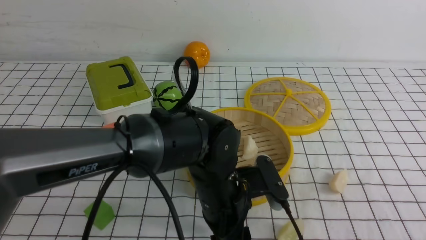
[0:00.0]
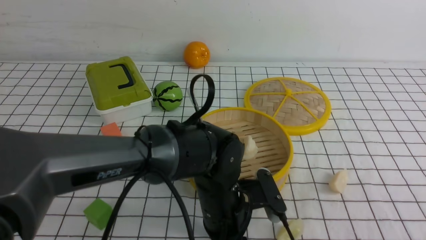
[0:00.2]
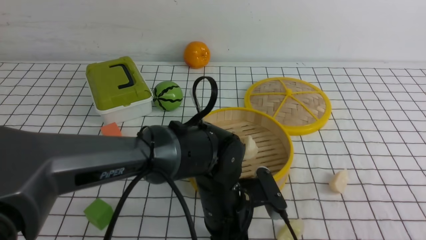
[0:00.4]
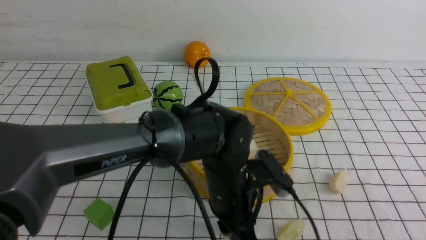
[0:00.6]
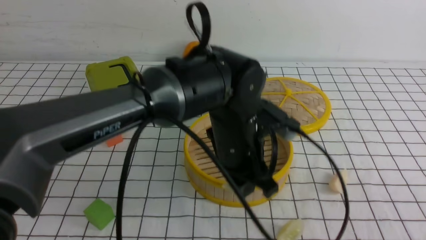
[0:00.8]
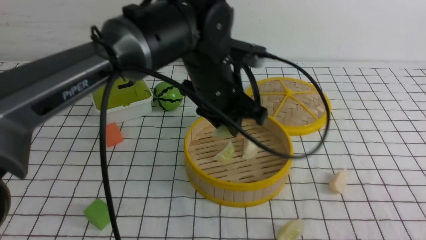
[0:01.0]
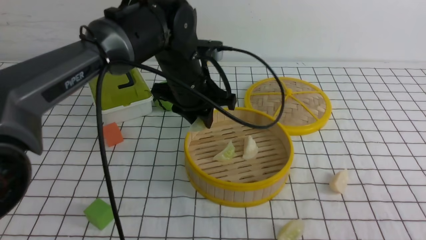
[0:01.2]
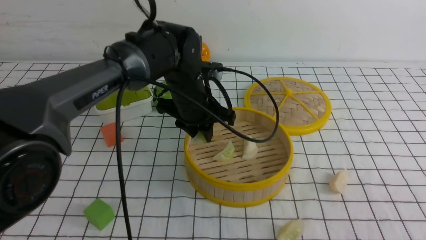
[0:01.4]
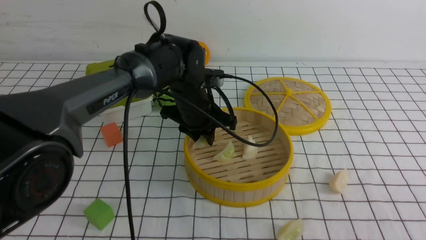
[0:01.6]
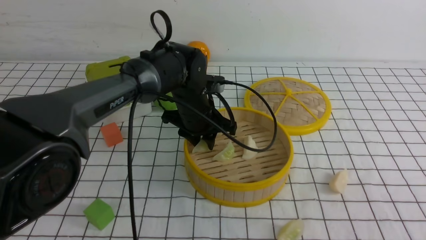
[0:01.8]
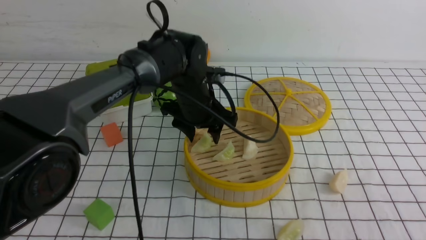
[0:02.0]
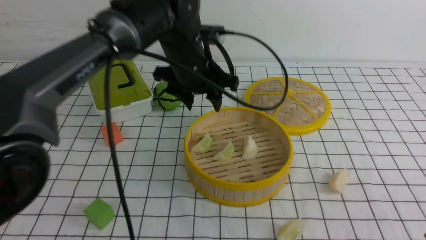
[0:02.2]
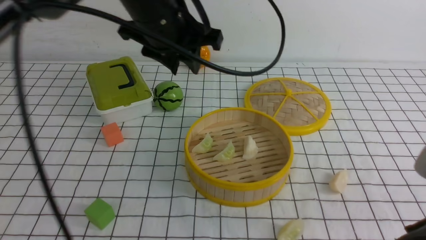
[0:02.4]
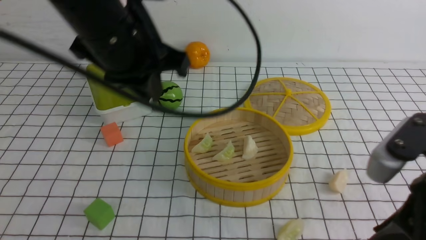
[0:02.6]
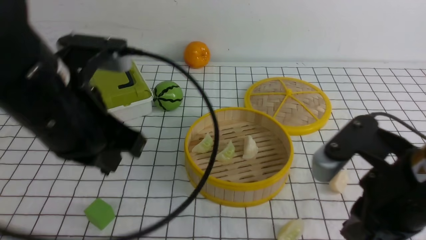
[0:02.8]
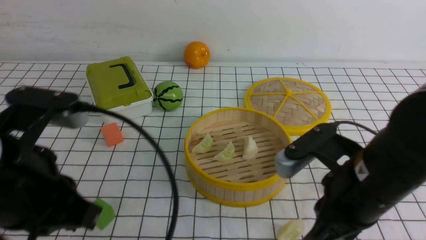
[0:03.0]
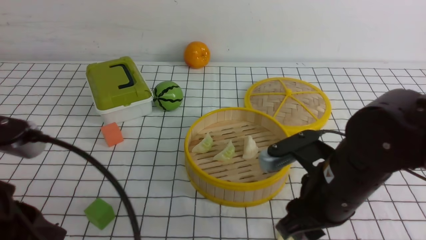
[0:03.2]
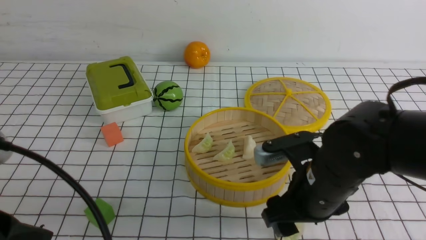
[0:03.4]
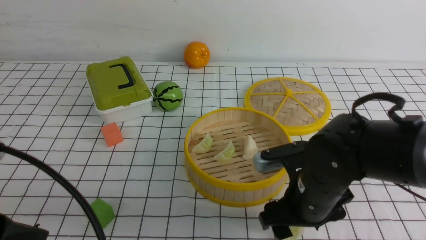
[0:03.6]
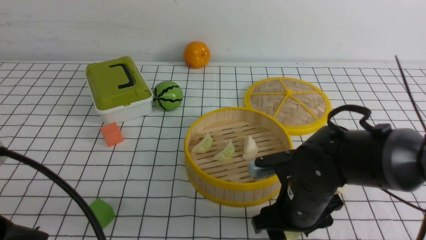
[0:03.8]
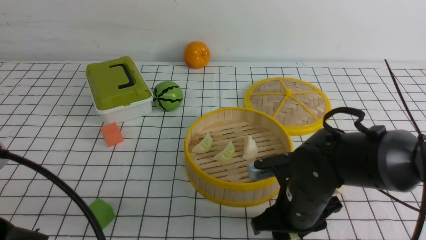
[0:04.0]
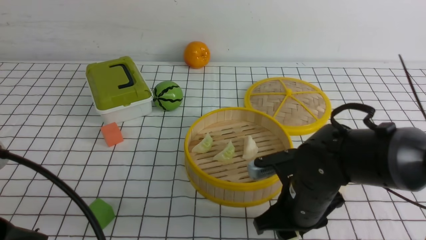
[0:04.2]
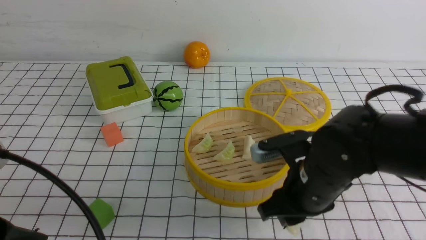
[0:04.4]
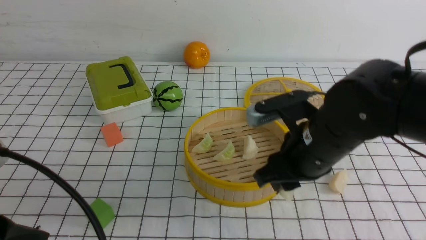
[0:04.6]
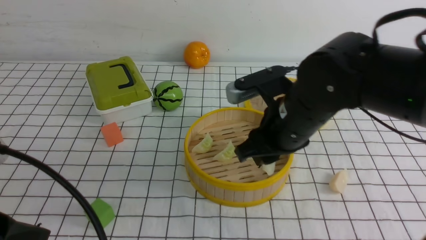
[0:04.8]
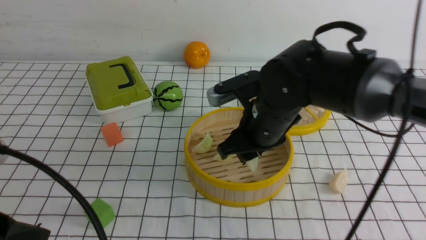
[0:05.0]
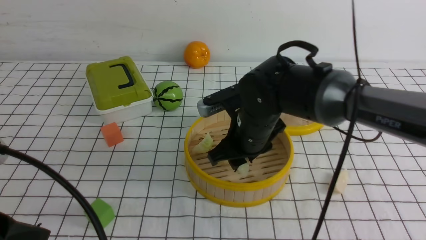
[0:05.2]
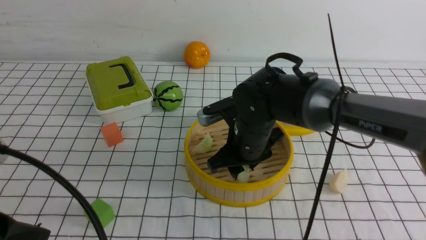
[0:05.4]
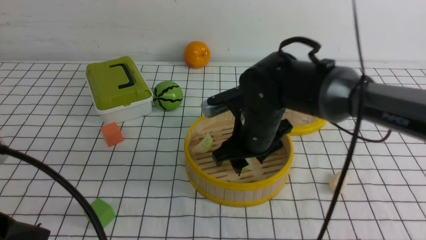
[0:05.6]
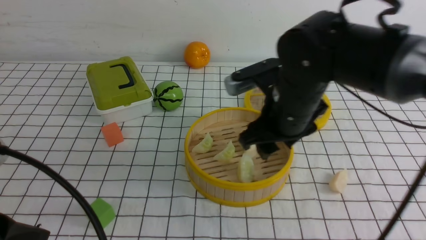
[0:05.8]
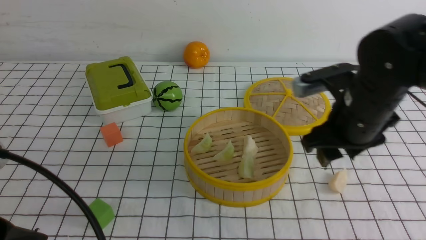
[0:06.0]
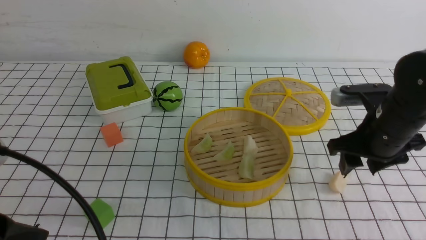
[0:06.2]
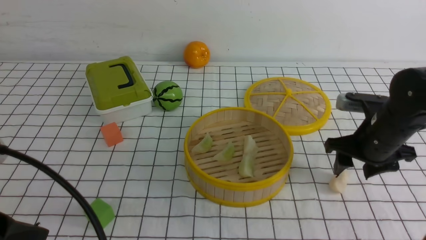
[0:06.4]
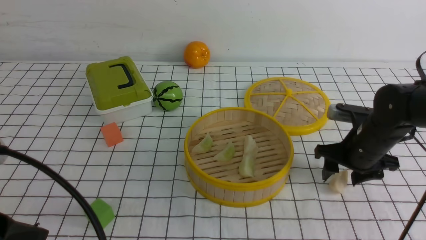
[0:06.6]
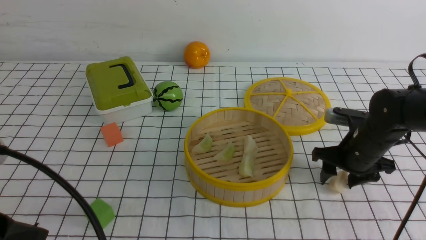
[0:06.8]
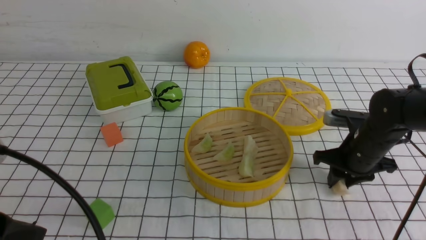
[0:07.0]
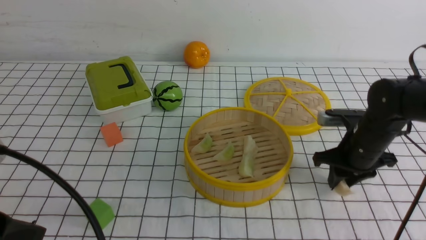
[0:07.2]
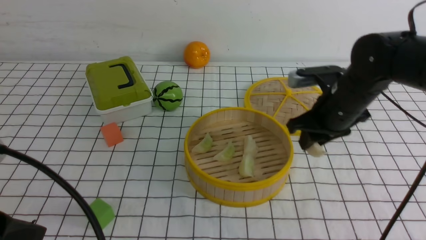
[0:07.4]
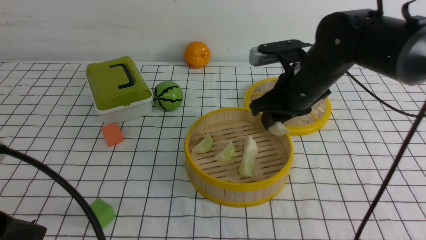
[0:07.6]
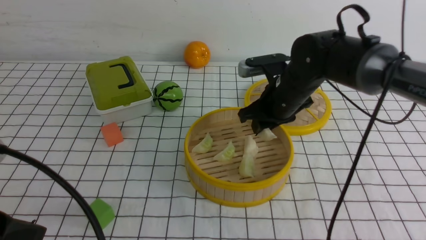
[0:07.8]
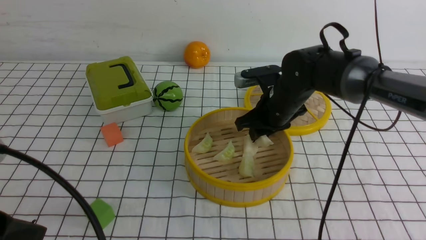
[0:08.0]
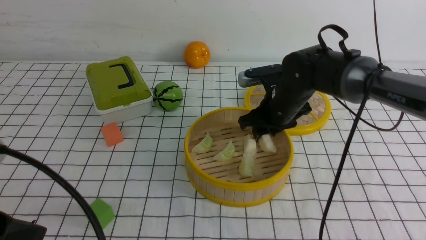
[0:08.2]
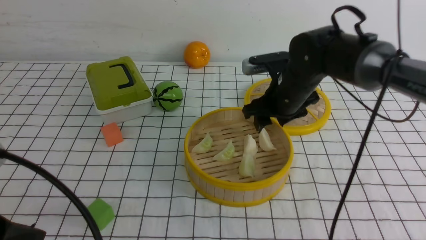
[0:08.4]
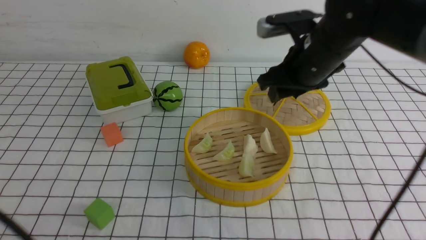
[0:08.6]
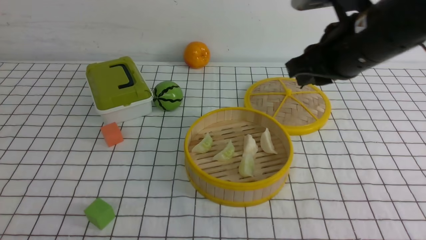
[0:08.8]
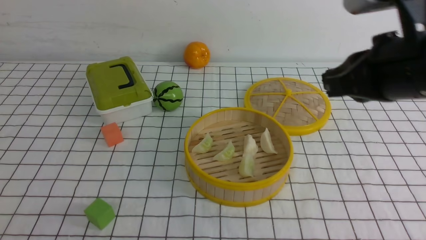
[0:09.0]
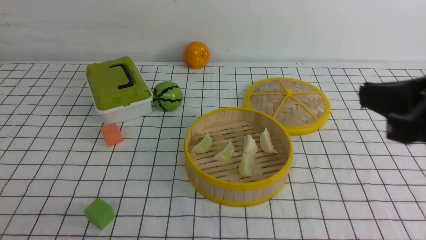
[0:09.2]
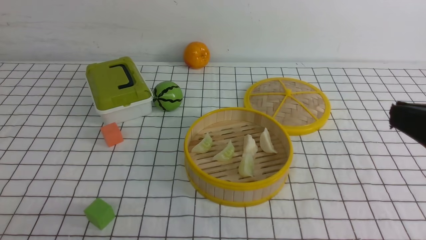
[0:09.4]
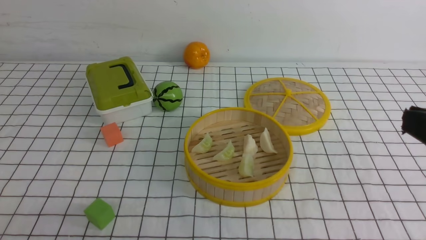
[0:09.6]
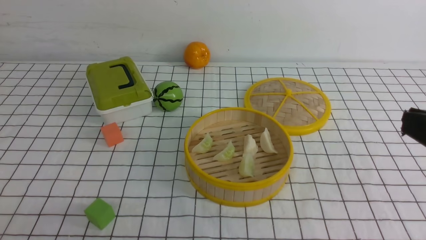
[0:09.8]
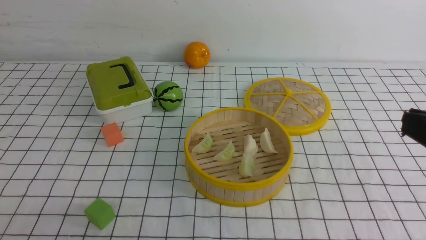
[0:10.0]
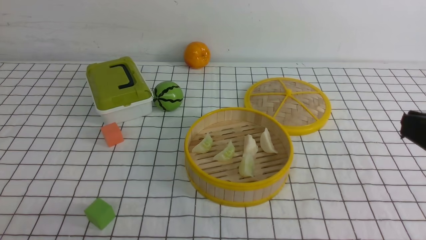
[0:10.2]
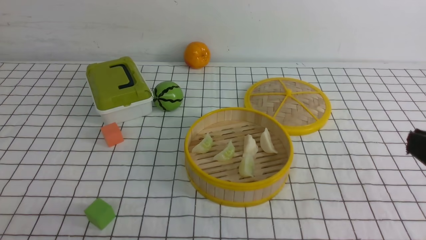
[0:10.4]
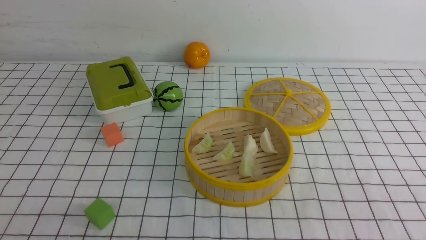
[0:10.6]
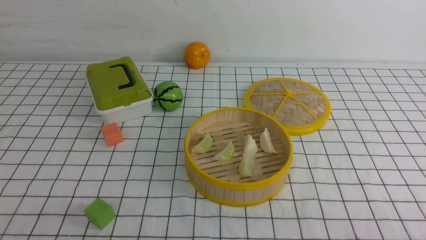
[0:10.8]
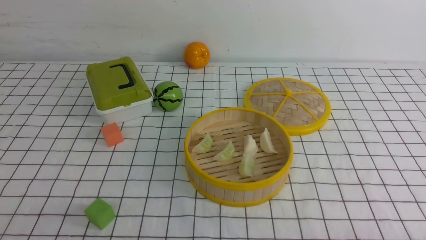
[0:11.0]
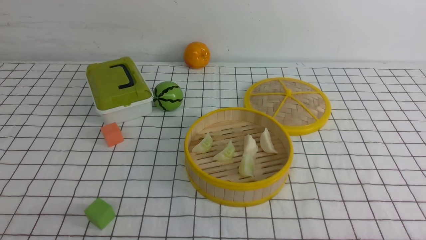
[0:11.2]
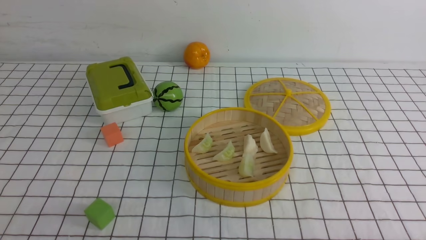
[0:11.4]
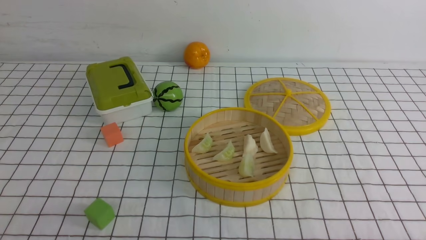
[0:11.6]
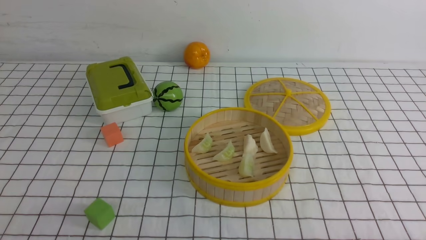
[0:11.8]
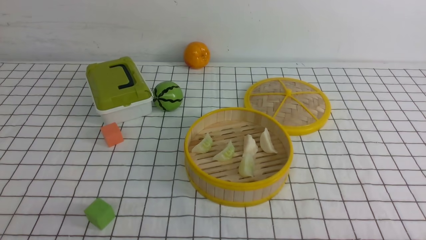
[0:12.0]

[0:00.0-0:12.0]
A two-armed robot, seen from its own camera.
Task of the whole recording: put the dumplings into the steamer on the table with the white tablecloth.
Step, 0:00.6 to 0:02.0: use the left arm to put the dumpling into the steamer.
Step, 0:02.2 to 0:04.0: use the right arm to grab a dumpling.
Step, 0:04.2 to 0:05.6: use the right arm to put the dumpling into the steamer.
Step, 0:06.0 to 0:06.8: use the right arm to grab a dumpling.
Step, 0:07.0 to 0:08.6: use the right arm to put the dumpling into the steamer.
0:00.0 to 0:01.6: The left gripper shifts roughly 15 cm forward, and closes.
0:01.6 to 0:03.0: The right gripper goes roughly 15 cm forward, to the left and downward. The left gripper travels backward, to the left and upward by about 35 cm, and closes its fingers.
0:03.0 to 0:04.4: The left gripper moves backward, about 5 cm, while the right gripper travels forward and downward by roughly 10 cm, and opens, then closes once more.
0:04.4 to 0:06.0: The right gripper moves to the right, forward and upward, approximately 10 cm.
0:06.0 to 0:07.6: The right gripper is displaced forward by roughly 5 cm, and closes.
0:07.6 to 0:09.0: The right gripper shifts roughly 20 cm backward and upward, and closes up. The left gripper heads backward, covering some 10 cm.
0:09.0 to 0:10.4: The right gripper moves backward, to the right and downward, some 15 cm.

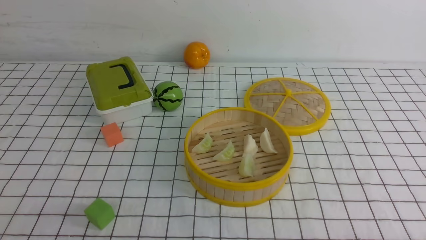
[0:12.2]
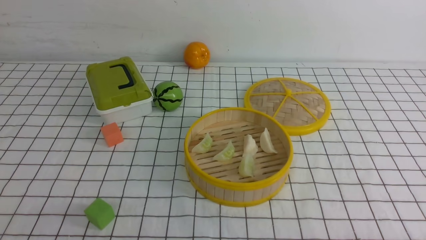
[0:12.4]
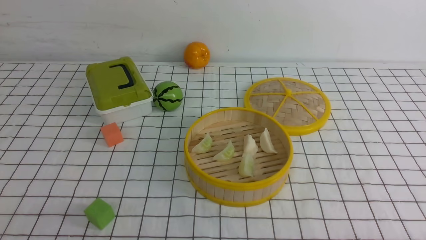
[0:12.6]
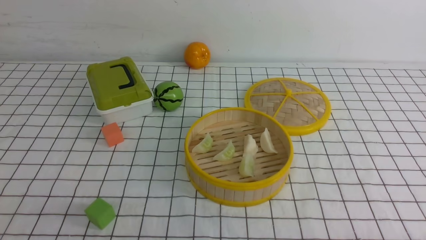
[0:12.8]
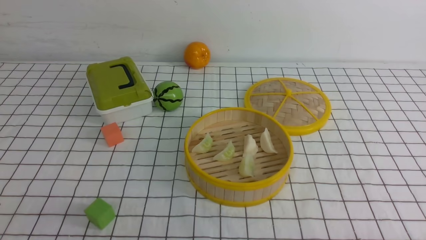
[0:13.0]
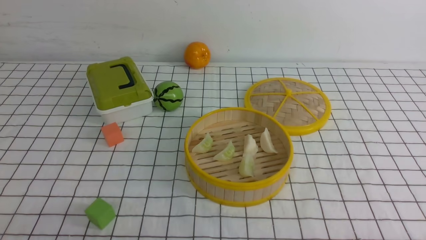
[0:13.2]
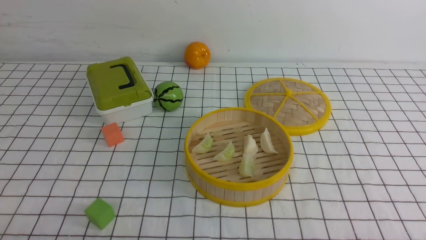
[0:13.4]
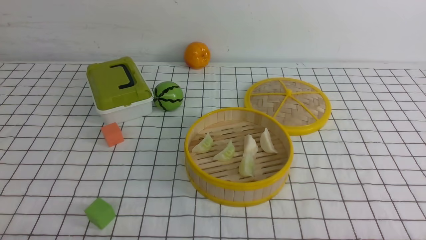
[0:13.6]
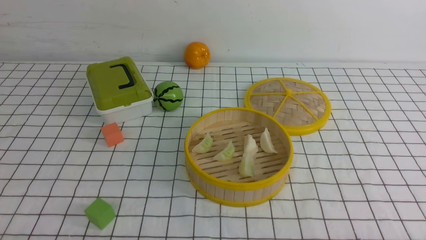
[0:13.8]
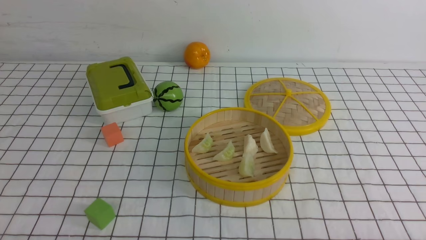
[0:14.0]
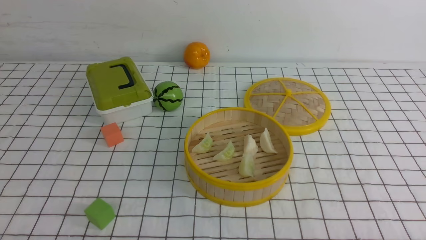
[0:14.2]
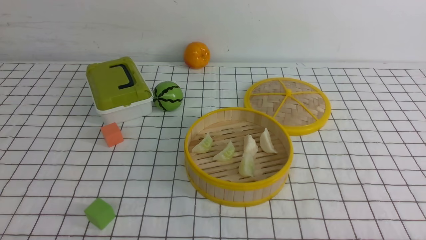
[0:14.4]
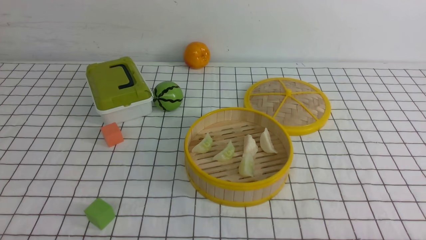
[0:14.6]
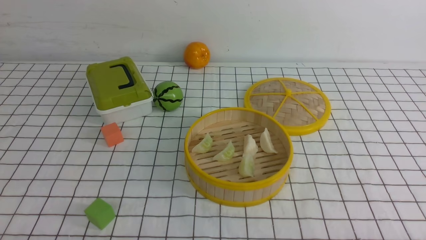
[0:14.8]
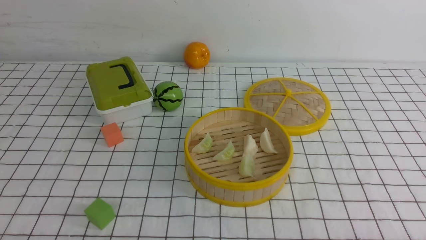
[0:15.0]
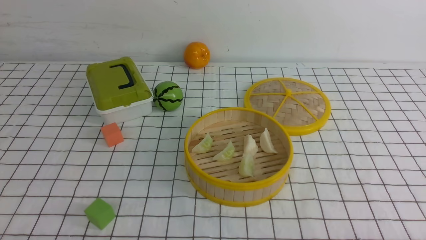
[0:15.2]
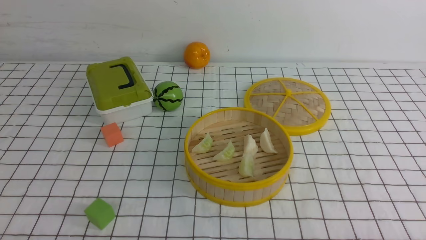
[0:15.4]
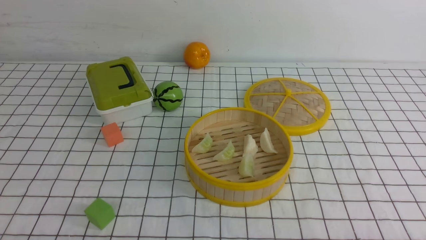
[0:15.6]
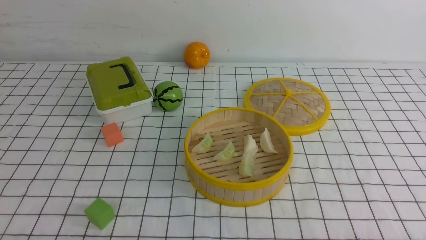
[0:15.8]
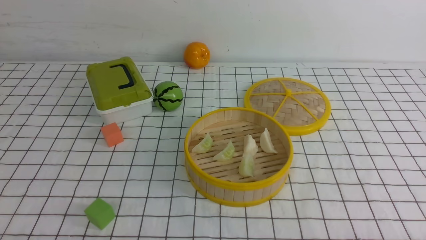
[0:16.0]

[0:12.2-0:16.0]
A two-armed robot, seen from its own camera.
Task of the whole recording: put the dumplings into the steamer on the table with the white tablecloth.
0:14.8 to 0:16.0: Neither gripper changes place.
